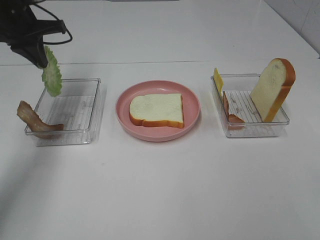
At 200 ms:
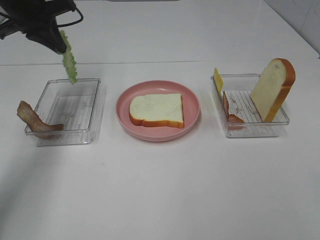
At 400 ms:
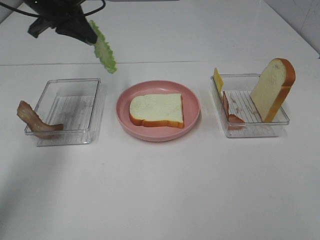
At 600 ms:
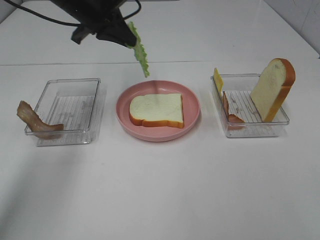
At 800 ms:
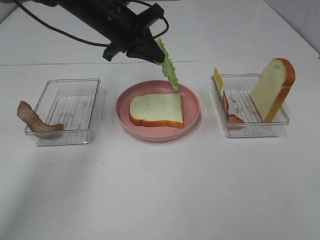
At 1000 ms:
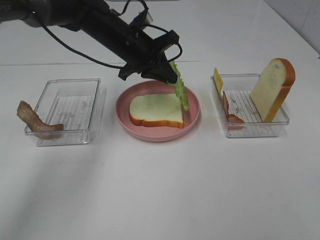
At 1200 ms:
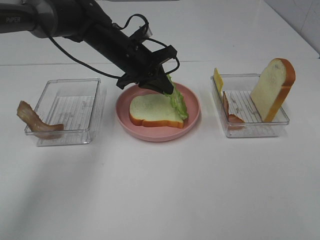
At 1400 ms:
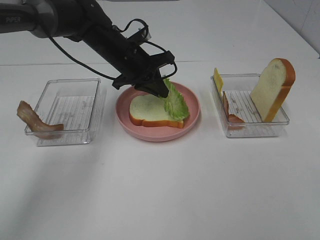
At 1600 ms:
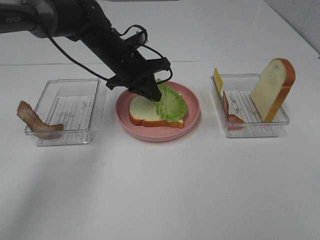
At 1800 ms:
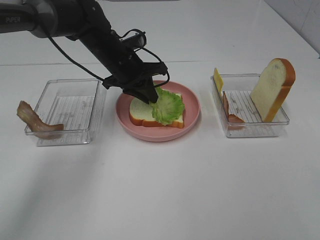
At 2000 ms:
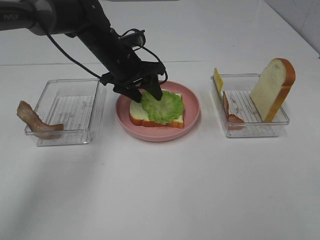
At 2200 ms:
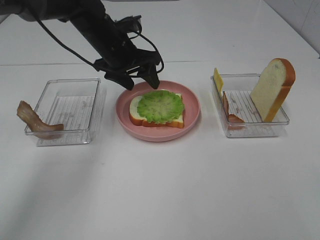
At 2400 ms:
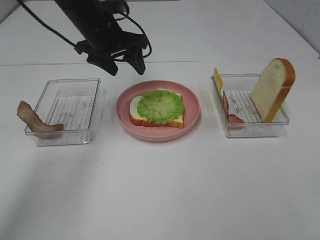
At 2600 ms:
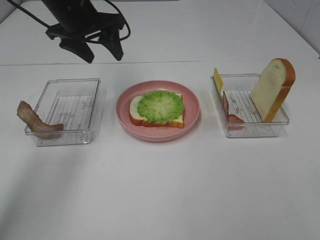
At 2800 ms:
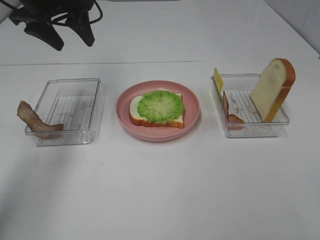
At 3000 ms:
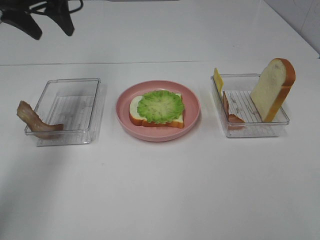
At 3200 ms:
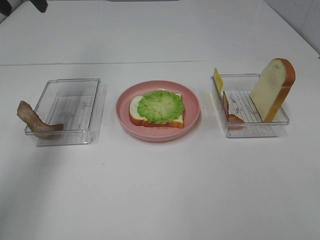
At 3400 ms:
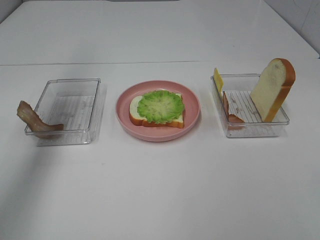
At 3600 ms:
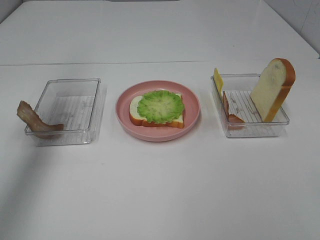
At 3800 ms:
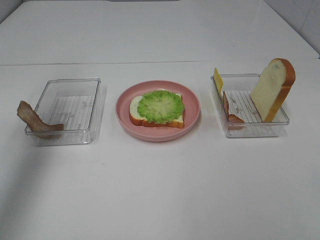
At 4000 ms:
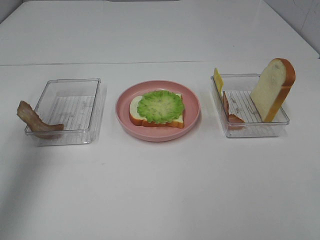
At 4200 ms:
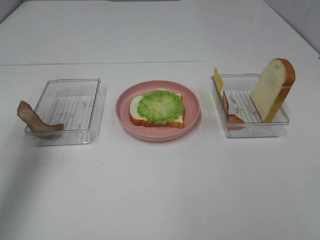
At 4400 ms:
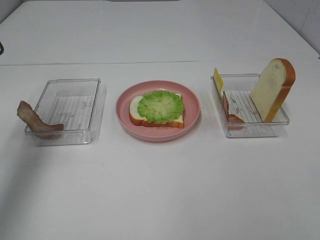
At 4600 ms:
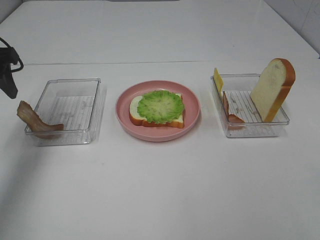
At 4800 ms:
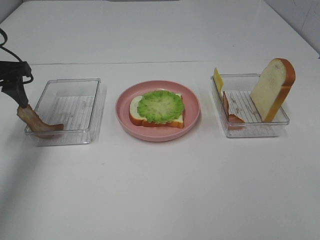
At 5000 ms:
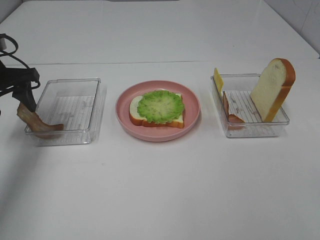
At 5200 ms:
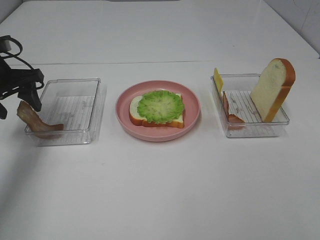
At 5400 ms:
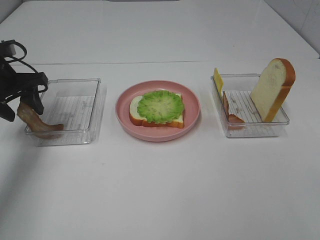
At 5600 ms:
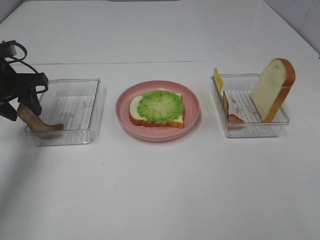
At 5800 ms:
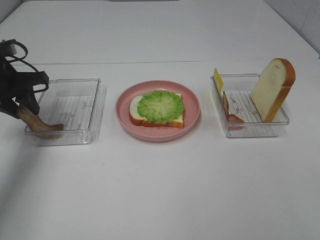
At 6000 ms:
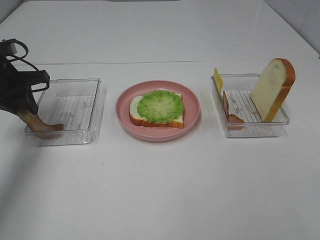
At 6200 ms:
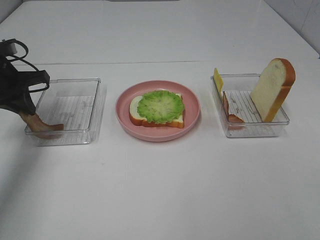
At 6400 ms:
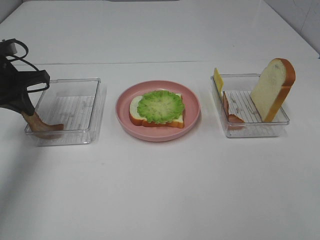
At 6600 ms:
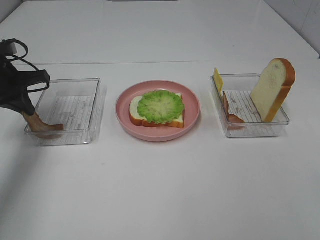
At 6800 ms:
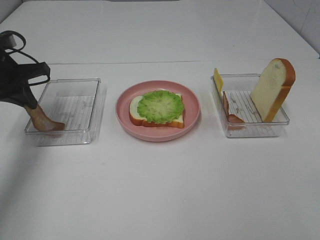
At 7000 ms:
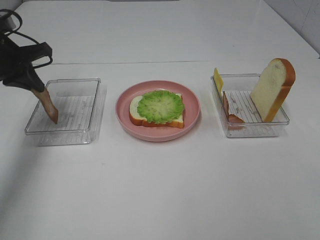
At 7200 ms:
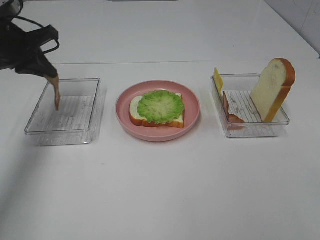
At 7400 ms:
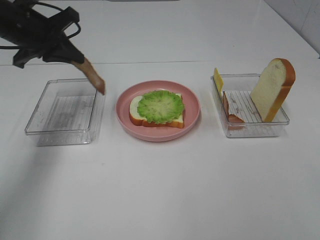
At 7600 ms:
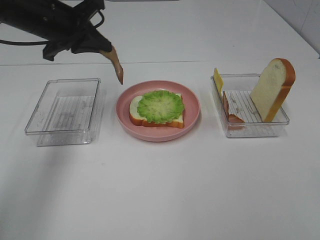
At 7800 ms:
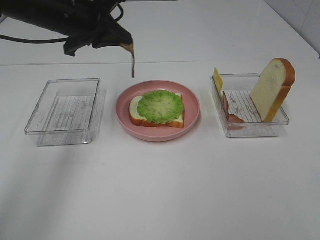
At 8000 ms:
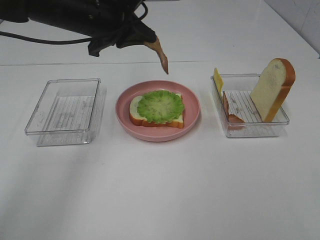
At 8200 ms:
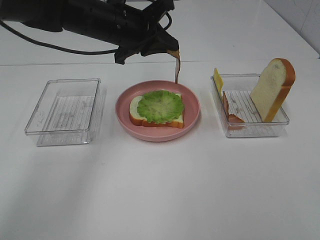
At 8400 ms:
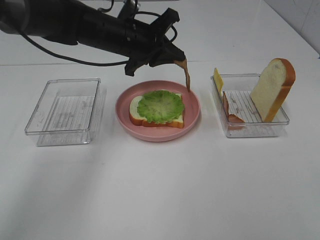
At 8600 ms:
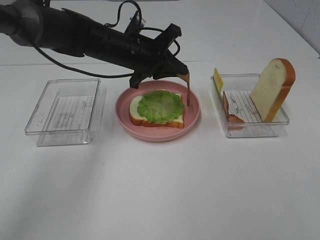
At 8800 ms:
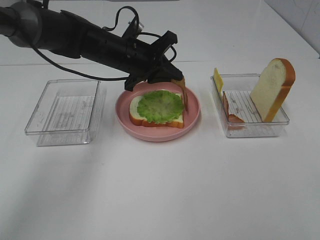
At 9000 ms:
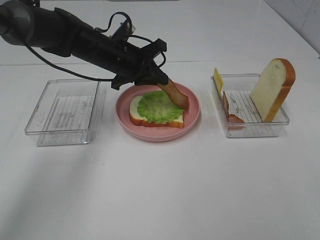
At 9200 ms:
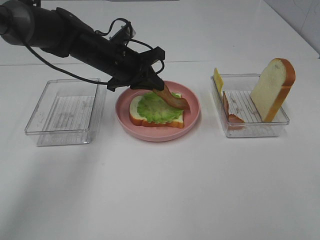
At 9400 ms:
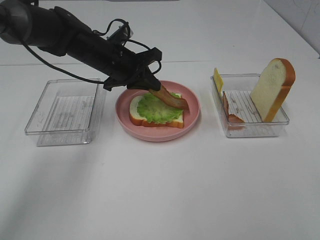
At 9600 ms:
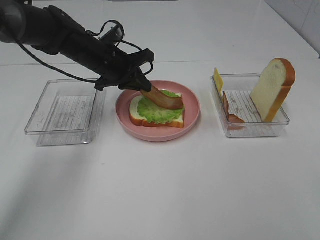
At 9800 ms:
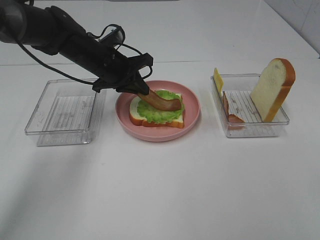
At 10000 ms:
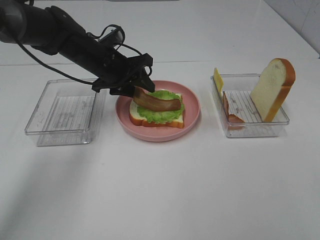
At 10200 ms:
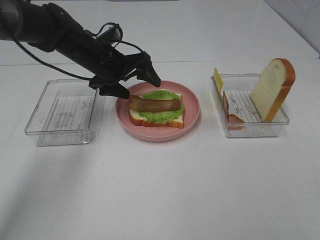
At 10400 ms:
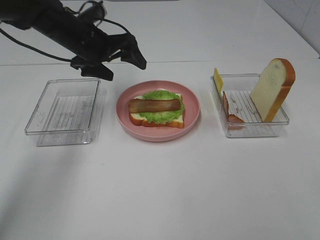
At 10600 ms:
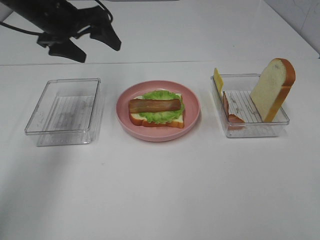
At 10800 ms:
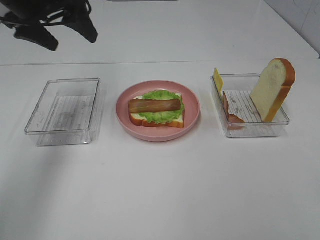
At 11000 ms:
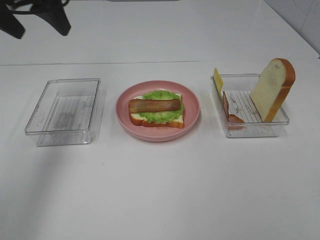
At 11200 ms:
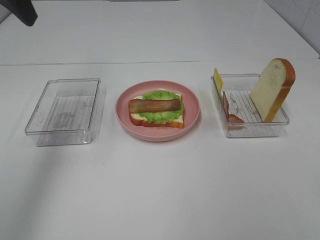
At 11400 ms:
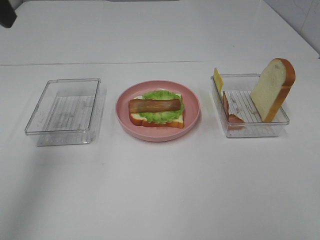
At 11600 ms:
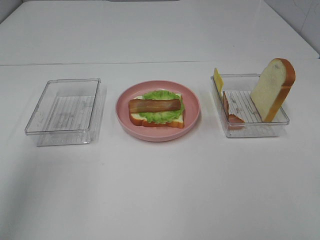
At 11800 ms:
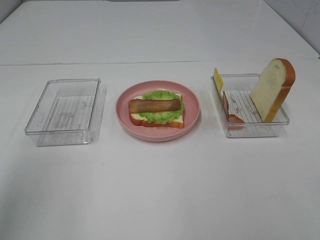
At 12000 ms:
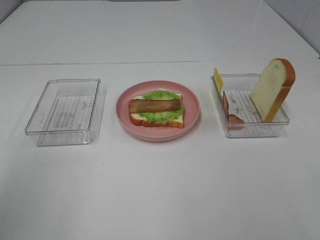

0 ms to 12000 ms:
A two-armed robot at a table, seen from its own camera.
Task of the whole recording: Make sandwiches.
Step, 0 ms to 2200 ms: Left hand:place the lettuce slice on the bread slice.
Step, 2400 ms to 6800 ms: Left hand:grab the bacon.
Step, 7000 ms to 10200 ms: Left hand:place bacon on lettuce slice.
0 ms to 1600 ms: The left gripper is displaced to the right and downward by about 20 cm.
1600 ms to 3000 ms: The left gripper moves upward and to the left, about 25 cm, and opens its fingers.
3000 ms to 4400 ms: The left gripper goes about 15 cm backward and to the left.
4400 ms to 6000 ms: The left gripper goes roughly 15 cm downward and forward, and closes its fingers.
6000 ms to 7600 ms: The left gripper is displaced to the right and upward by roughly 15 cm.
7600 ms to 9000 ms: The left gripper moves to the right and downward, some 15 cm.
9000 ms to 10400 ms: The left gripper moves to the left, about 5 cm, and opens up.
10400 ms to 12000 ms: The left gripper travels backward and upward by about 35 cm.

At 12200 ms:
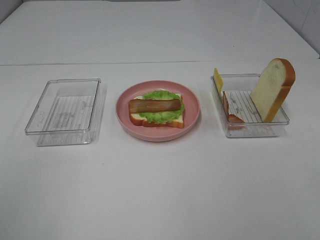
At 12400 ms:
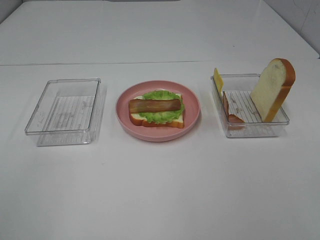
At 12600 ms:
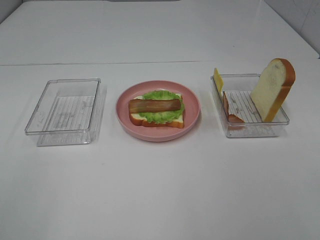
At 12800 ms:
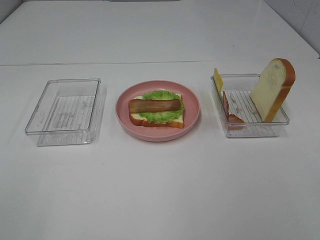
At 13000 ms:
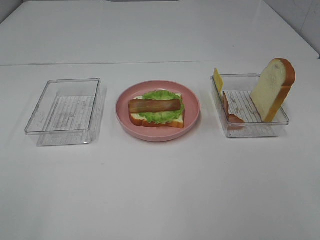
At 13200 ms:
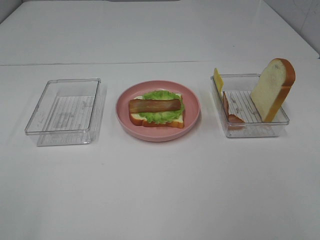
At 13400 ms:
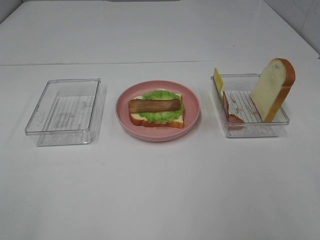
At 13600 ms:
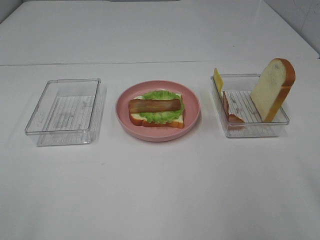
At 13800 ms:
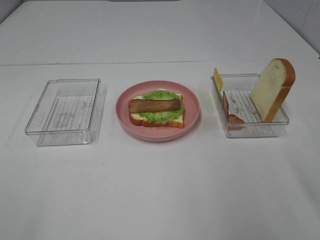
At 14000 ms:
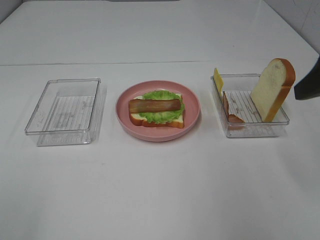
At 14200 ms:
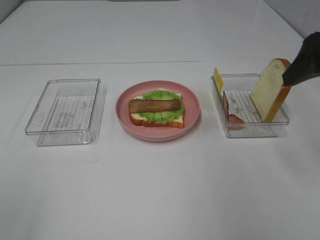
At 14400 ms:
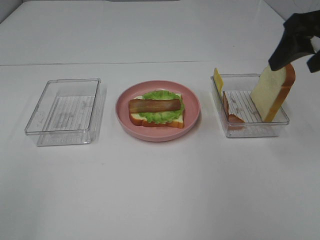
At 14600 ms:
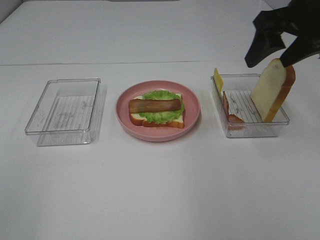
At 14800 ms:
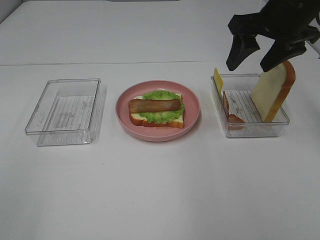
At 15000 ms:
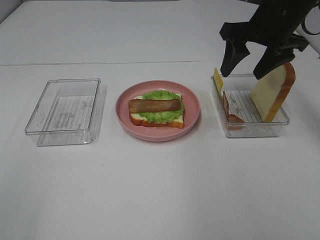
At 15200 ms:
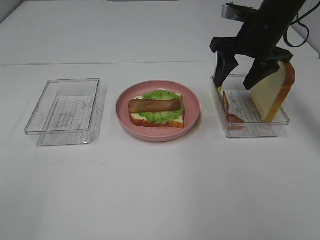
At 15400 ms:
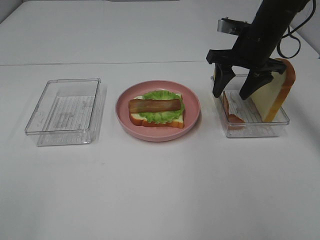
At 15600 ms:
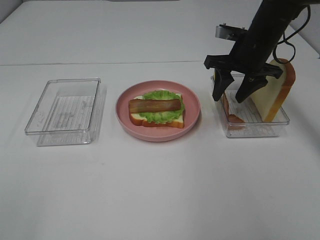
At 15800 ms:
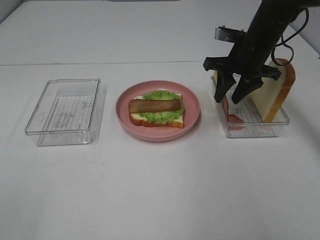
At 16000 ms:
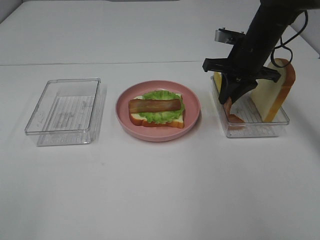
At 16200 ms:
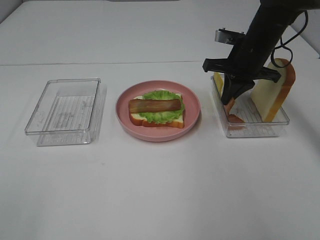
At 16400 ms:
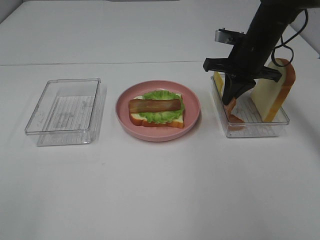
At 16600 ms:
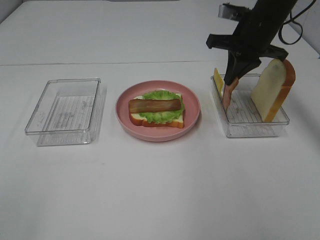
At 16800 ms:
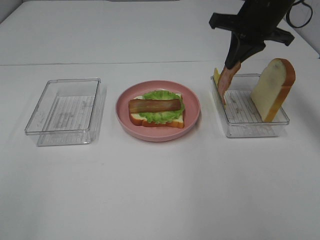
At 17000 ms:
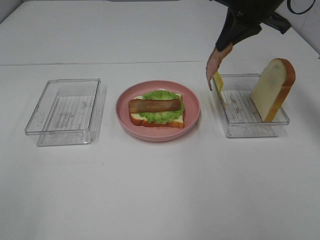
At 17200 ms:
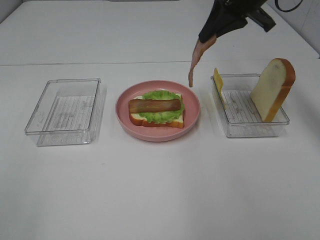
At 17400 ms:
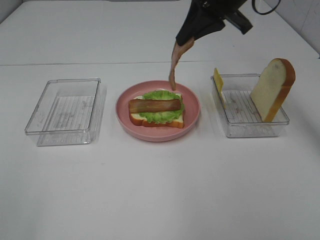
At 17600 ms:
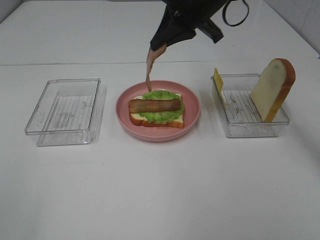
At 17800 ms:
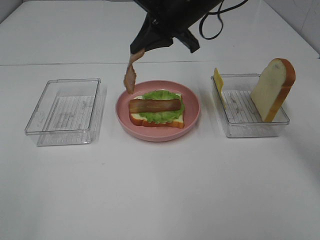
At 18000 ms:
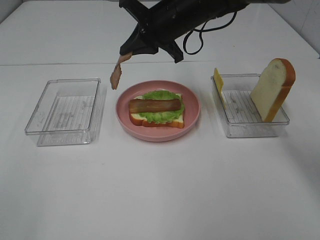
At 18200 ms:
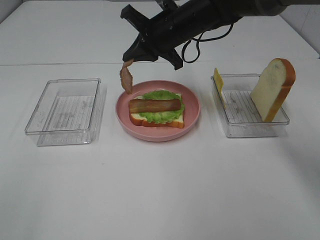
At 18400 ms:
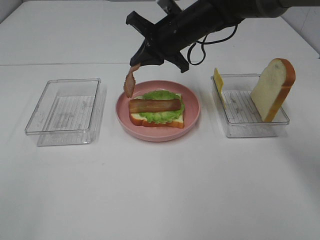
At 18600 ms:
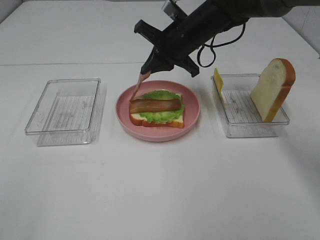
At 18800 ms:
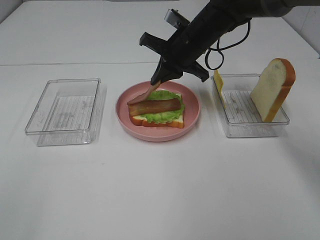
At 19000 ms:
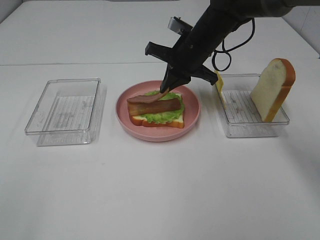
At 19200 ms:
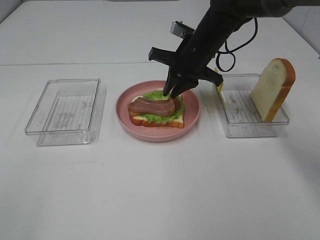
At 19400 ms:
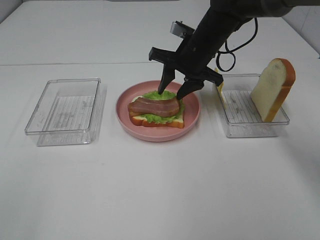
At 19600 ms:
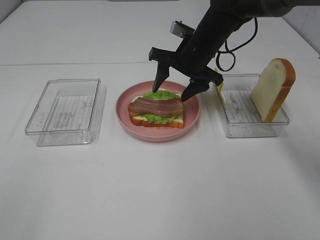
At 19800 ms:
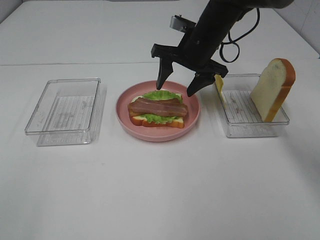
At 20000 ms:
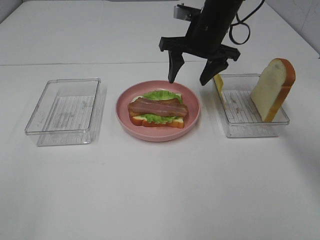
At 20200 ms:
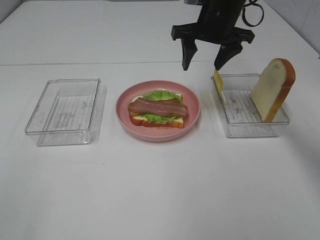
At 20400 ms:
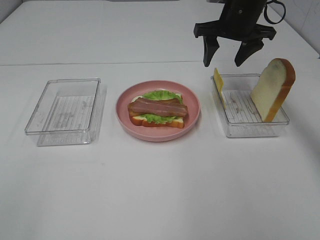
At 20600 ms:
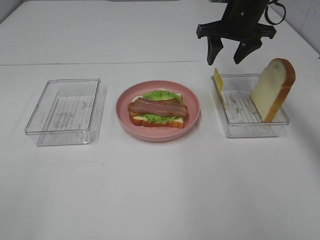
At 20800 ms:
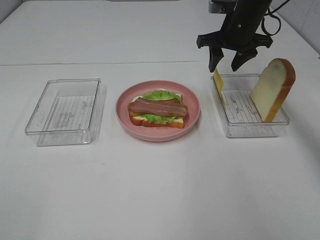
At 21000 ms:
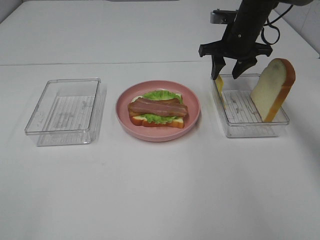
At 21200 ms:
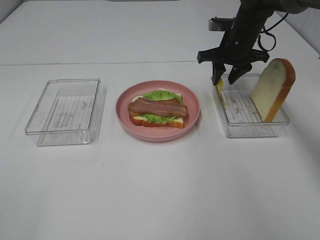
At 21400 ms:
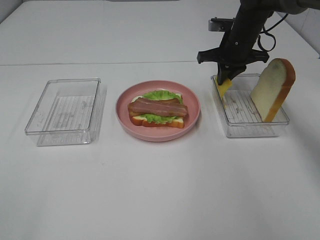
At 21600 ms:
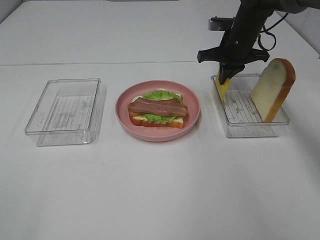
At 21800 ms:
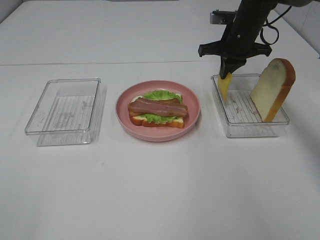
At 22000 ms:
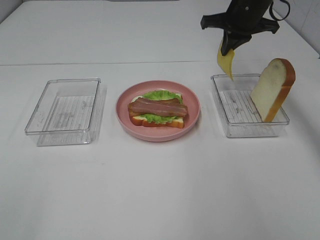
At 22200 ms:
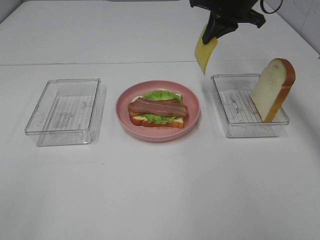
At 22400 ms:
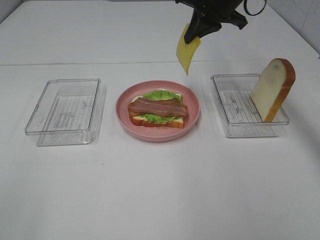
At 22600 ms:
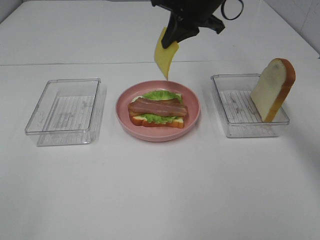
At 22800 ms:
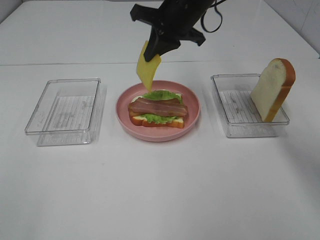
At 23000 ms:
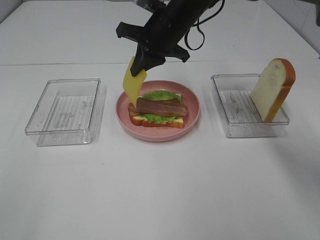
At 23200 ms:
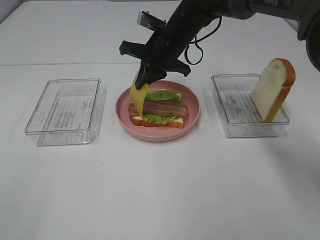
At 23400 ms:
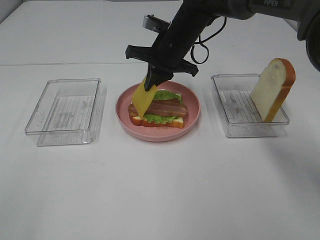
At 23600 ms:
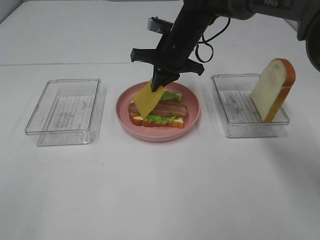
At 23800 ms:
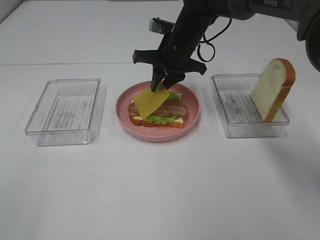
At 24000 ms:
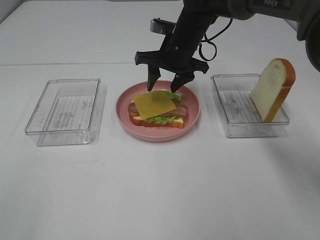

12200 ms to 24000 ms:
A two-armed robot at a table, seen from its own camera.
Task of the whole recording: Make sandwiches.
Step, 12200 ms to 16400 ms: Right hand:grab the bacon.
Step, 16600 ms to 20000 ms: Right hand:place bacon on bacon.
Step, 20200 ms to 21600 ms: Right hand:grab the cheese slice.
13600 ms to 15200 ms: The right gripper shifts about 30 cm forward.
15200 ms to 16600 ms: The right gripper closes up.
16600 ms to 18200 ms: The right gripper shifts roughly 15 cm to the left.
18200 ms to 19600 ms: The right gripper moves about 5 cm, and opens its fingers.
19600 ms to 21000 ms: The right gripper heads to the right and forward, covering roughly 10 cm.
21000 ms to 22600 ms: The right gripper shifts approximately 15 cm upward and to the left, and closes up.
22600 ms to 24000 ms: The right gripper moves downward, roughly 10 cm, and opens its fingers.
